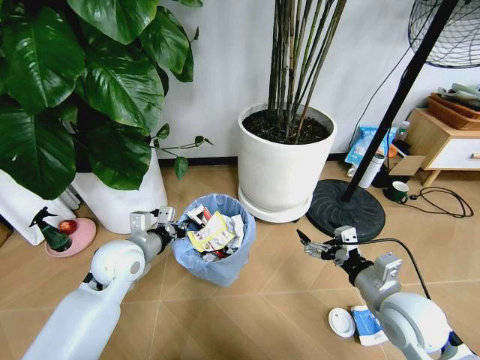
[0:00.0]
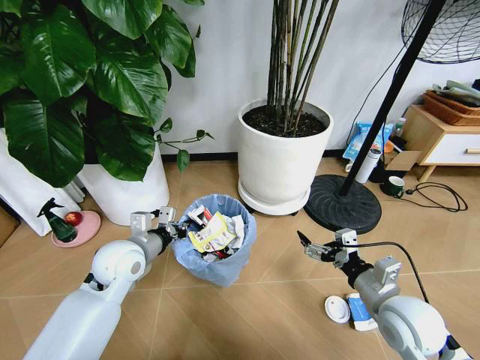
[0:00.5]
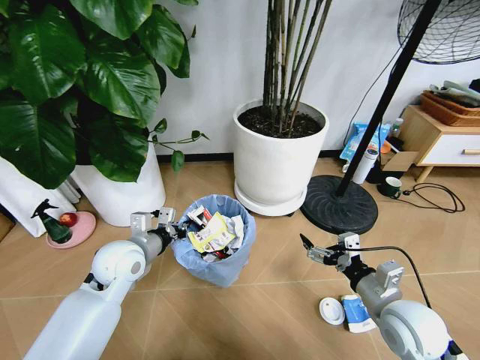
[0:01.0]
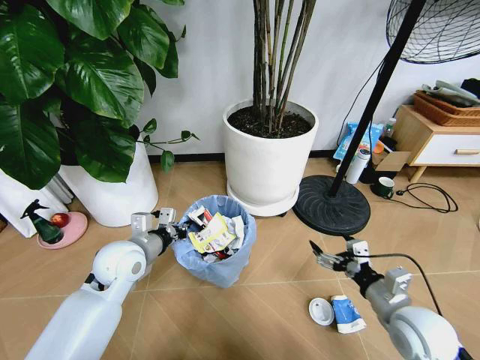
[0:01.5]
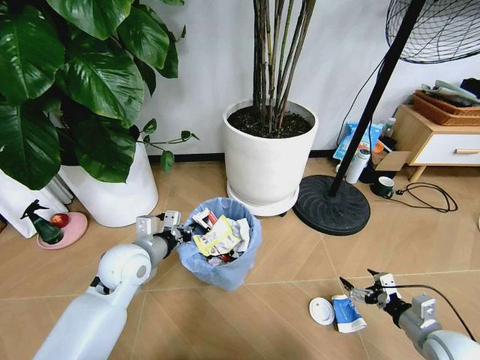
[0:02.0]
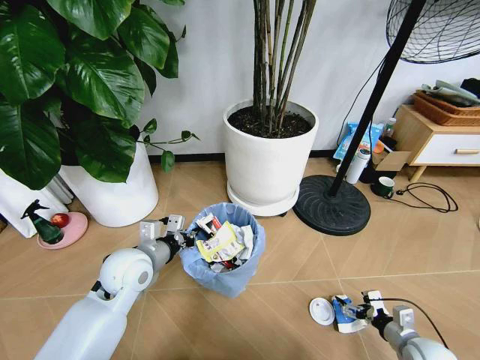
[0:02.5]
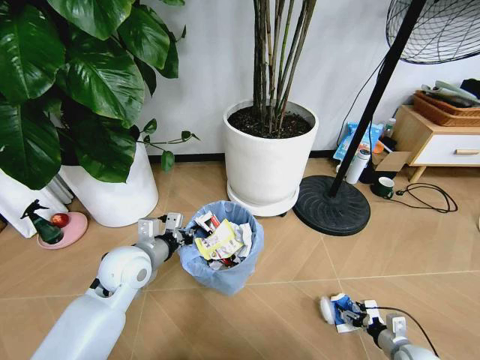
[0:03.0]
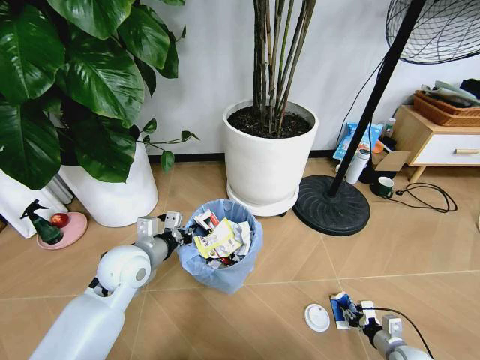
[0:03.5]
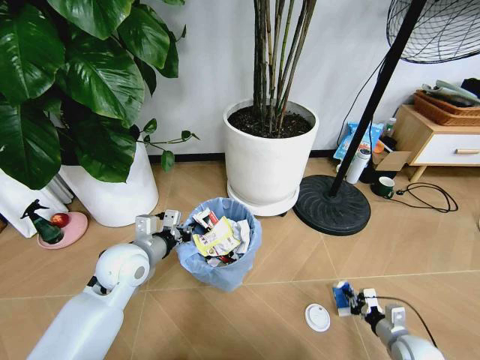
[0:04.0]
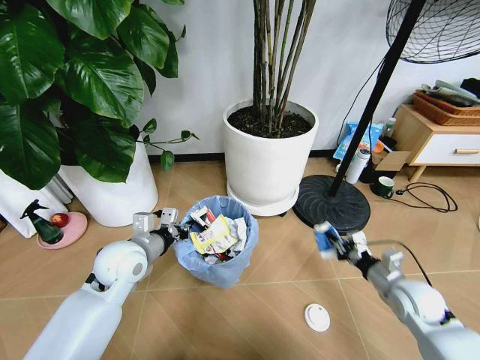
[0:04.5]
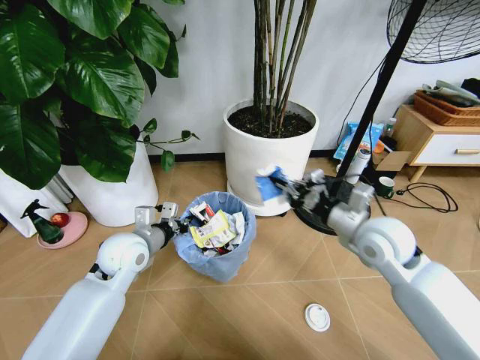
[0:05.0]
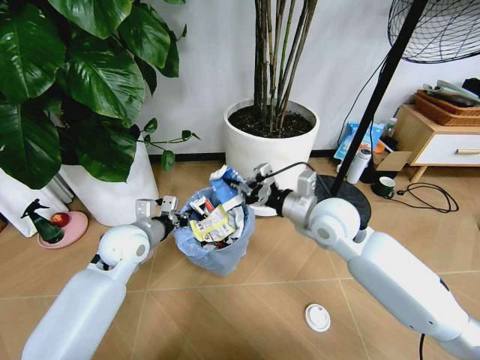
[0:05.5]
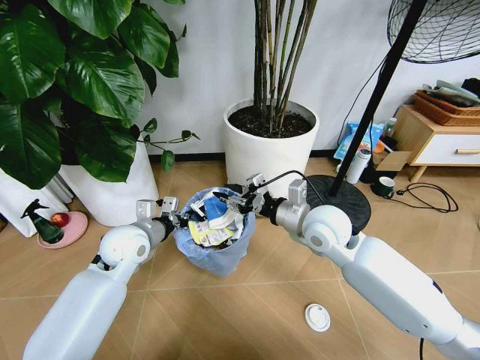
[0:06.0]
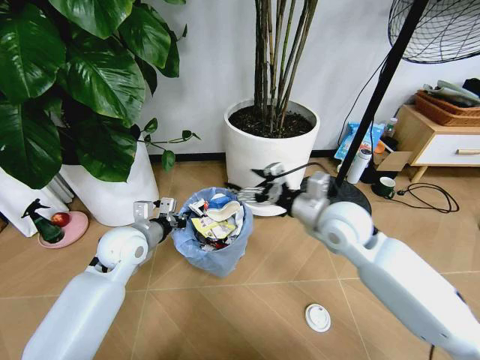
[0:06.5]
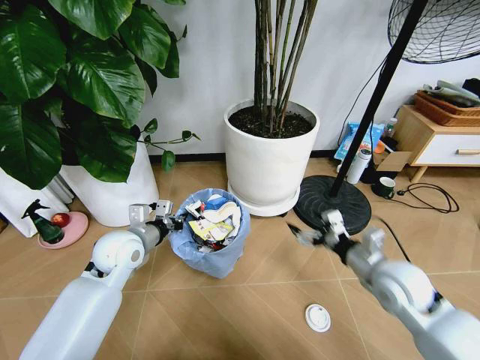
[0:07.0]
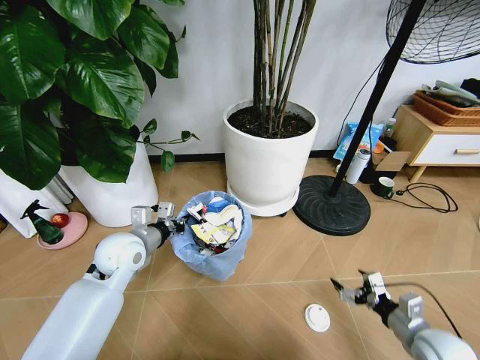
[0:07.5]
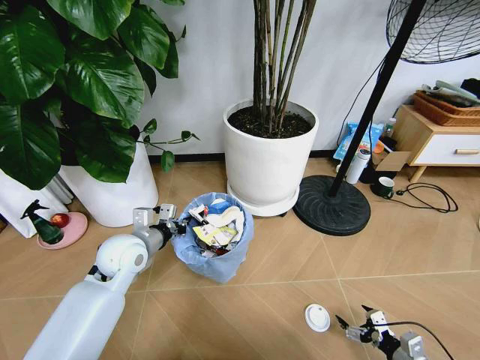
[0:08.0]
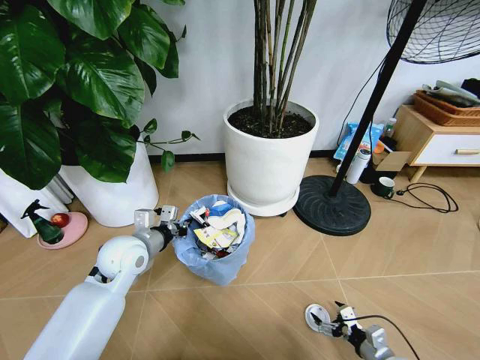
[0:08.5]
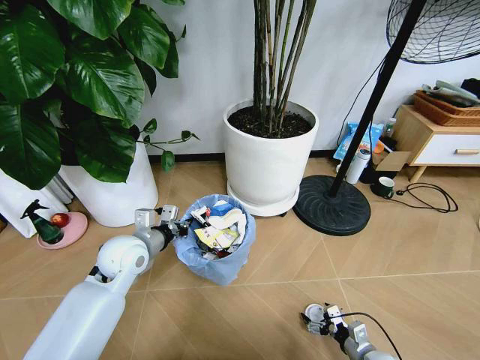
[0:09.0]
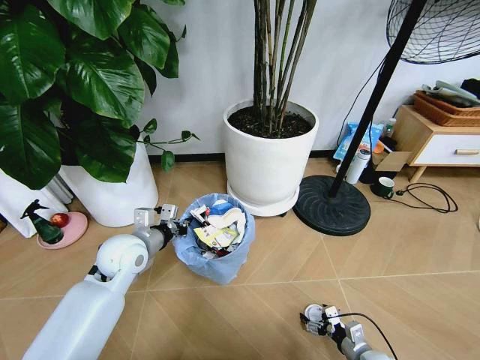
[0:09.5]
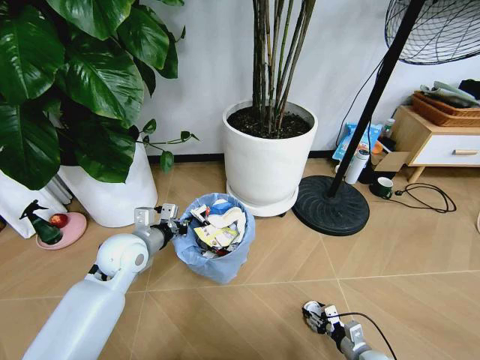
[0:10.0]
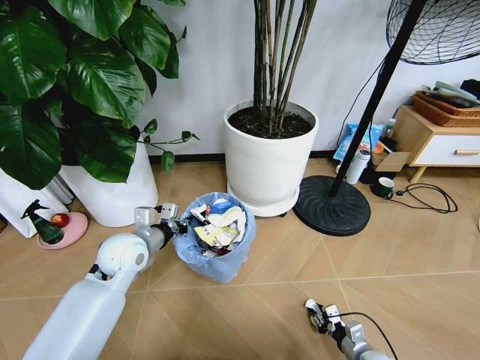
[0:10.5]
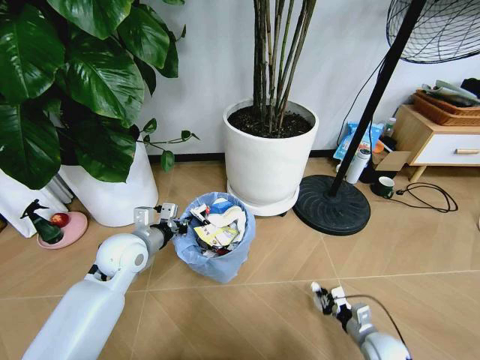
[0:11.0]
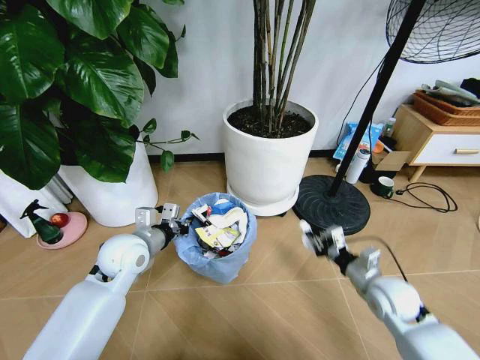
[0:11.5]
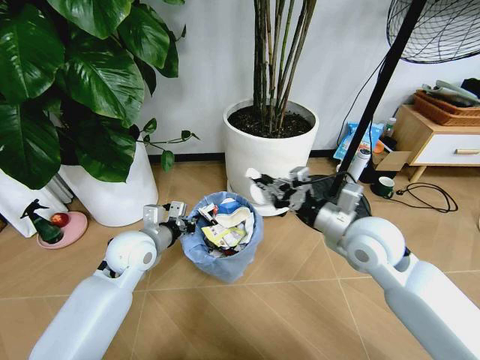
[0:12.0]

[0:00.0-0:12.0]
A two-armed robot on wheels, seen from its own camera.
Task of the whole recording: Pick up the trash bin and place the garbage on the floor into it.
0:00.0 to 0:02.0: The right gripper heads to the right and downward, covering approximately 20 cm.
0:02.0 to 0:04.0: The right gripper shifts approximately 10 cm downward, and closes its fingers.
0:04.0 to 0:06.0: The right gripper heads upward, to the left and forward, covering some 40 cm, and opens up.
0:06.0 to 0:08.0: The right gripper goes about 50 cm downward, to the right and backward, and opens its fingers.
0:08.0 to 0:10.0: The right gripper heads to the left and downward, covering some 10 cm, and closes.
0:10.0 to 0:12.0: The right gripper is displaced upward by roughly 40 cm, and closes up.

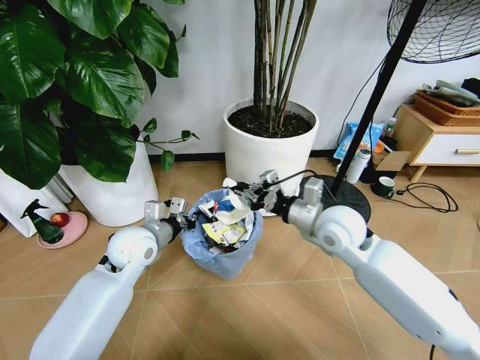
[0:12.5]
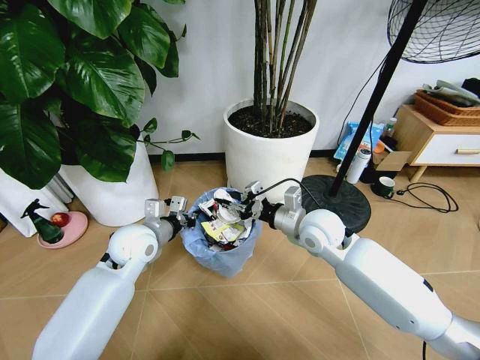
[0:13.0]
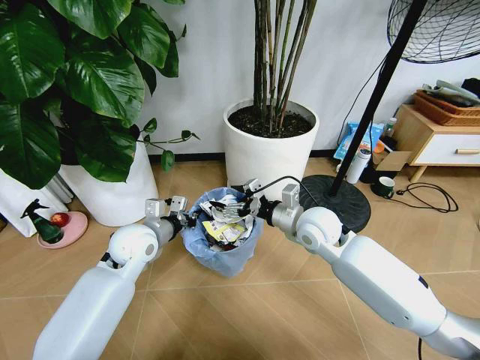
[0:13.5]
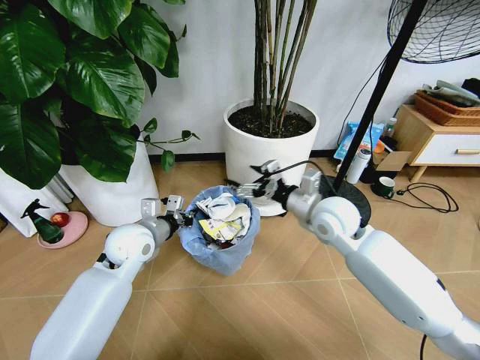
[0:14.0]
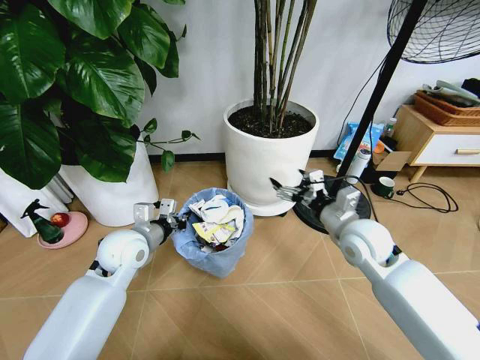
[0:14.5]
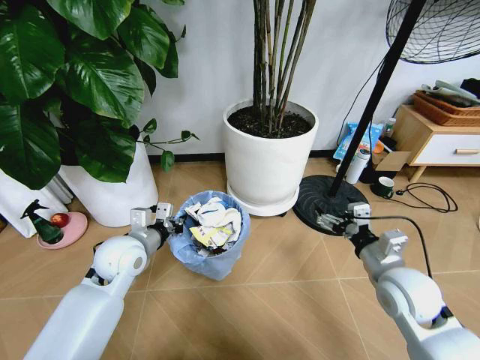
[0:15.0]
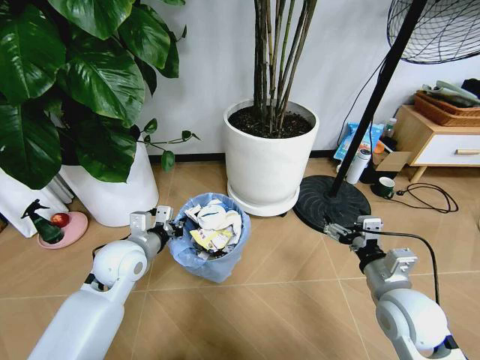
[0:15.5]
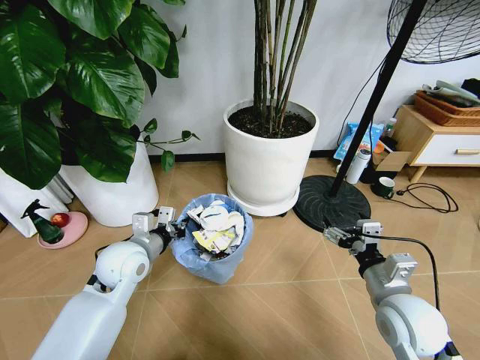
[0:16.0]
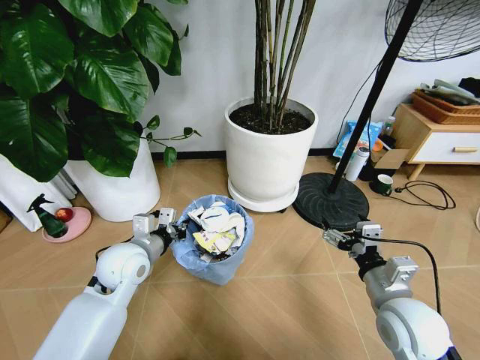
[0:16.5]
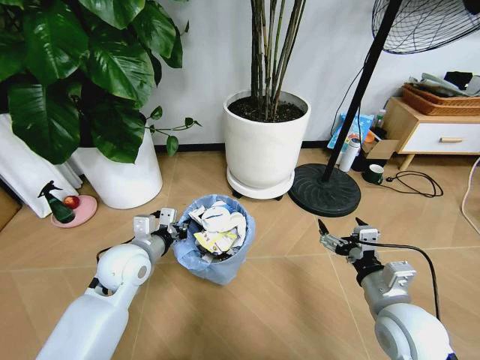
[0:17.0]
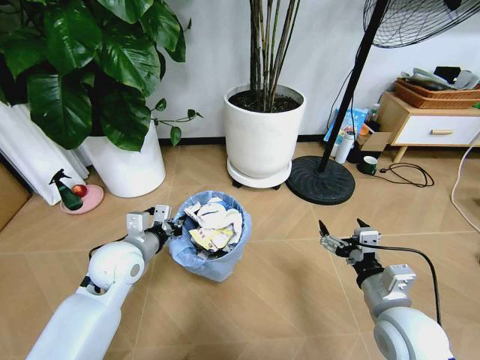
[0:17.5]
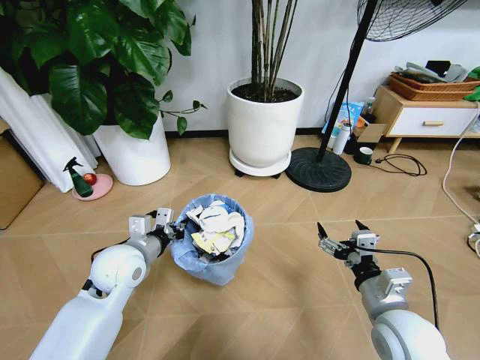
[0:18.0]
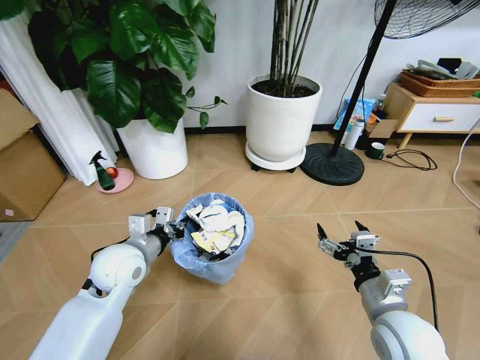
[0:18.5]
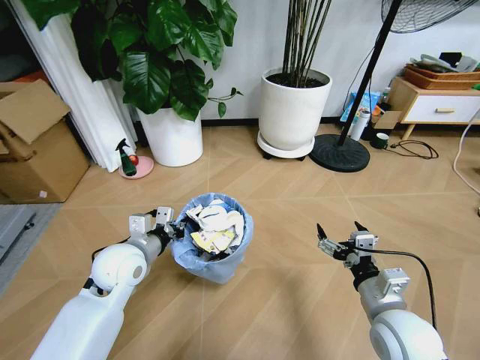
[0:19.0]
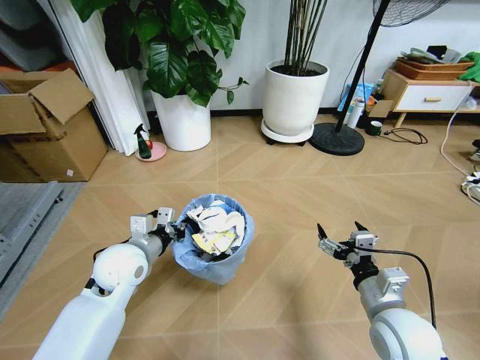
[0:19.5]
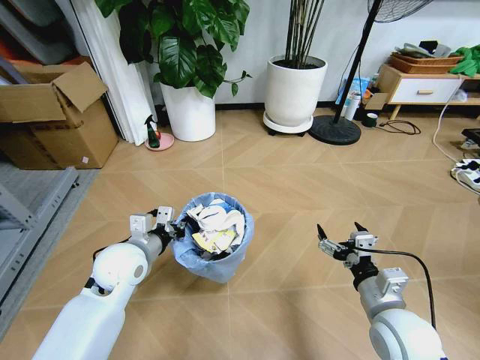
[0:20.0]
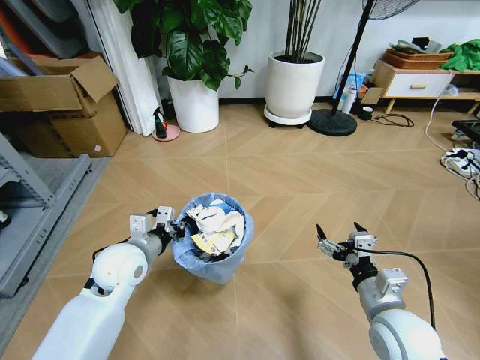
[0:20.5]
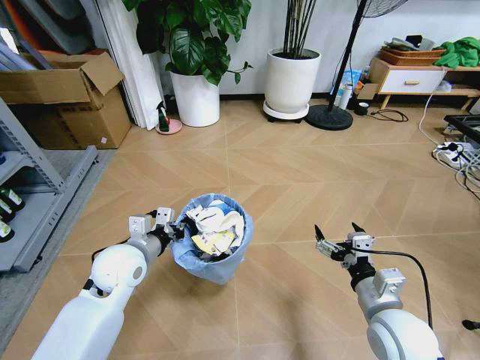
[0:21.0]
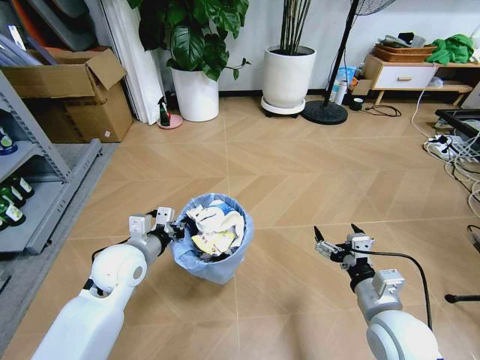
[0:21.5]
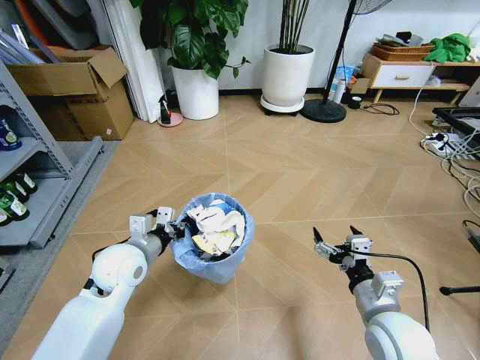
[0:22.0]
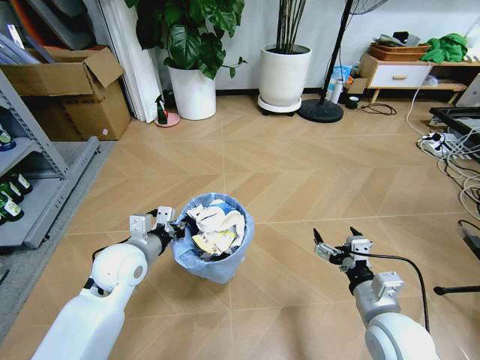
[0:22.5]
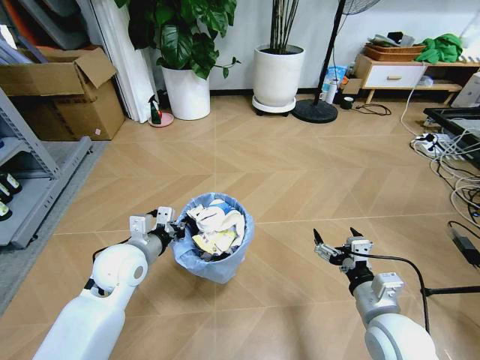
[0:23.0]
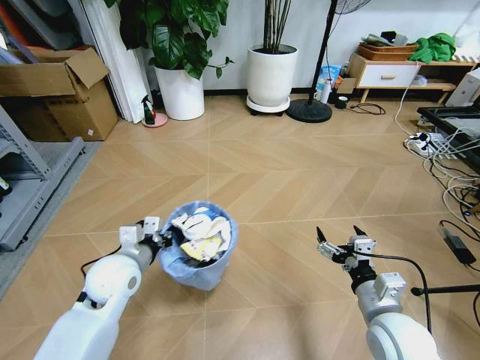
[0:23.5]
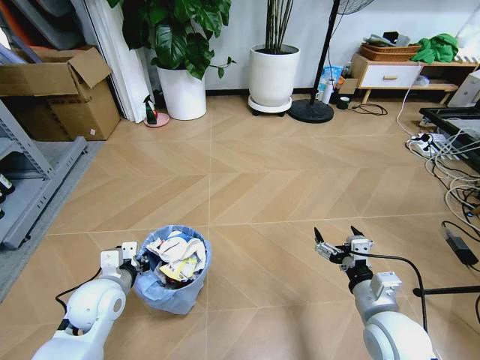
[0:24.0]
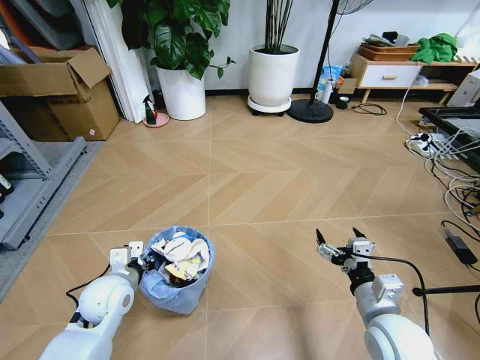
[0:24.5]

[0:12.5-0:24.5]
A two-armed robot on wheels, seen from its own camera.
Task of the whole recording: Pick up the trash bin and place the garbage on the floor into it.
0:12.5 to 0:14.5: The right gripper is displaced to the right by about 5 cm, and opens its fingers.
0:14.5 to 0:16.5: The right gripper heads backward, covering some 15 cm.
0:22.5 to 0:24.5: The left gripper moves downward, about 5 cm.

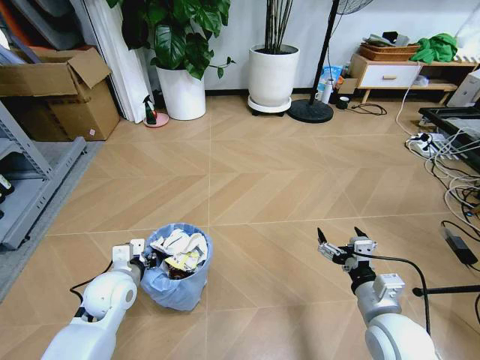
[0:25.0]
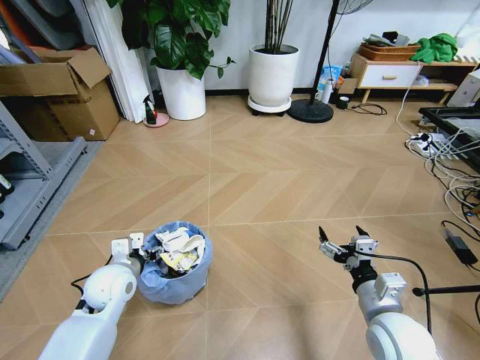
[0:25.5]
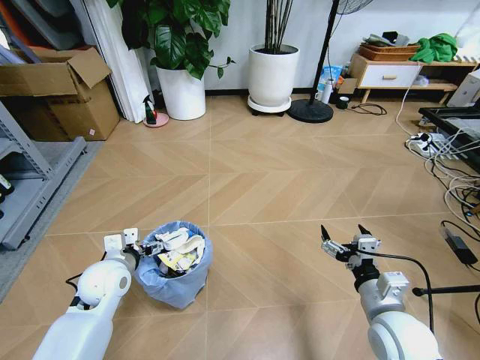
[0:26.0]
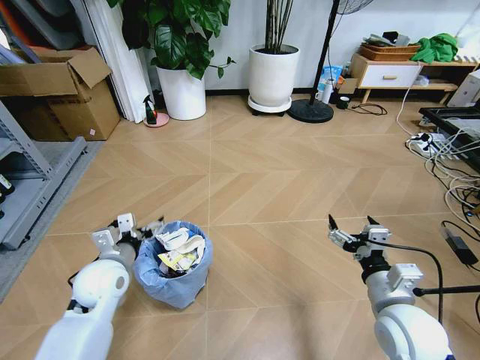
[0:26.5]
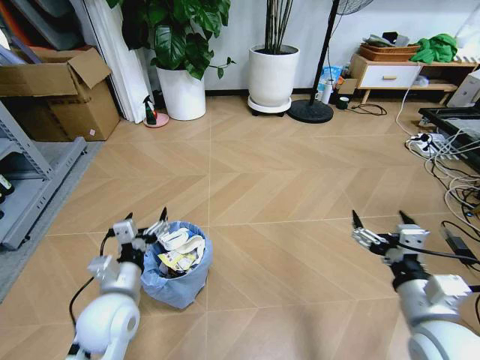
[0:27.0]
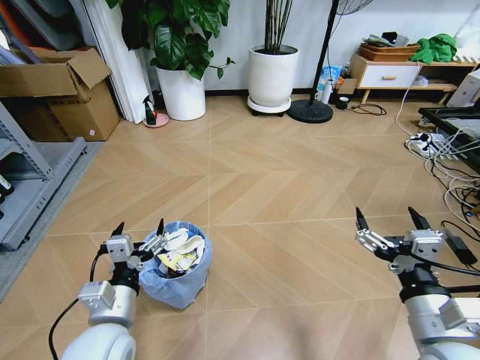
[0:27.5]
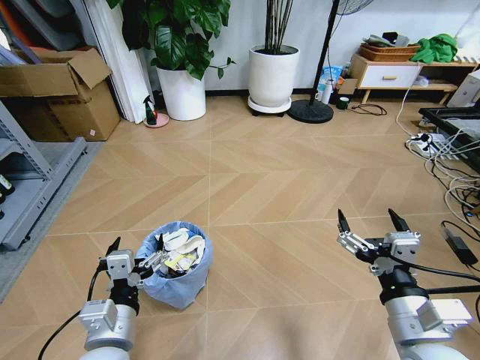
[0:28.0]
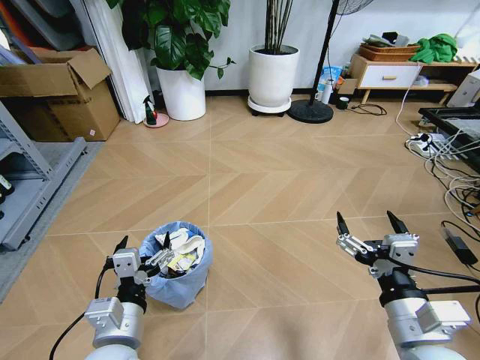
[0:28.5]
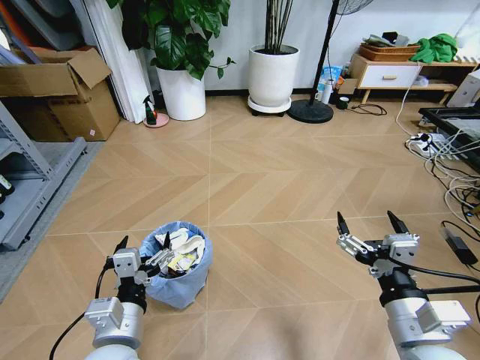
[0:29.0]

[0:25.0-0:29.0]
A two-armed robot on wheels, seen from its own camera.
Task of the whole recording: Pick up the trash bin and place the garbage on the floor into it.
0:25.0 to 0:27.0: The right gripper is displaced upward by some 10 cm, while the left gripper shifts roughly 5 cm backward, and opens.
0:27.0 to 0:29.0: The left gripper moves backward, roughly 10 cm. Meanwhile the right gripper shifts by some 5 cm.
